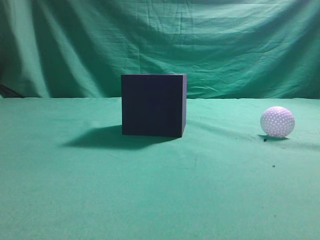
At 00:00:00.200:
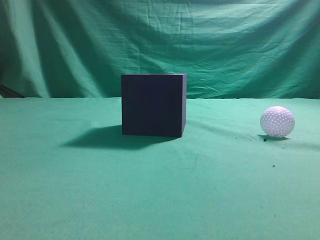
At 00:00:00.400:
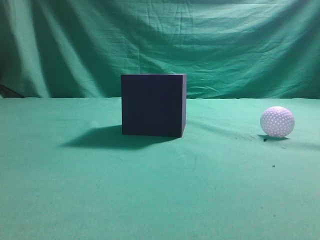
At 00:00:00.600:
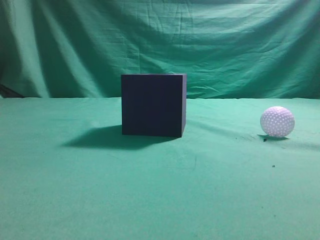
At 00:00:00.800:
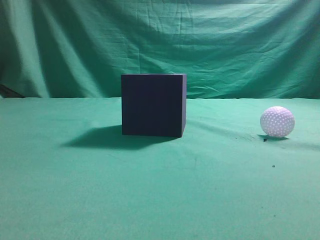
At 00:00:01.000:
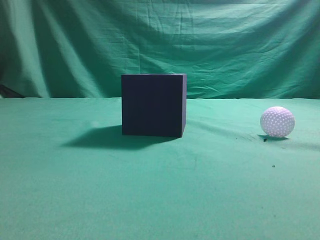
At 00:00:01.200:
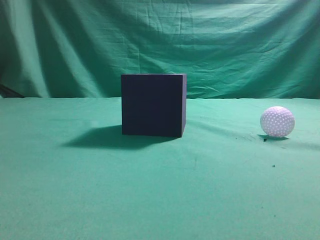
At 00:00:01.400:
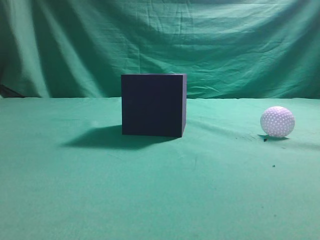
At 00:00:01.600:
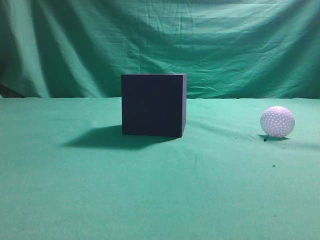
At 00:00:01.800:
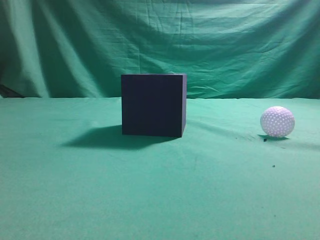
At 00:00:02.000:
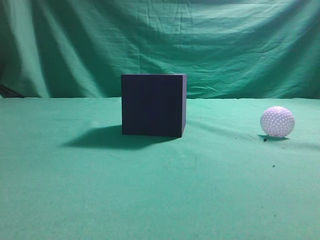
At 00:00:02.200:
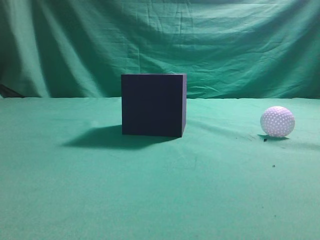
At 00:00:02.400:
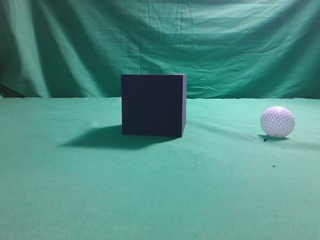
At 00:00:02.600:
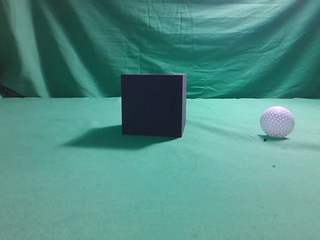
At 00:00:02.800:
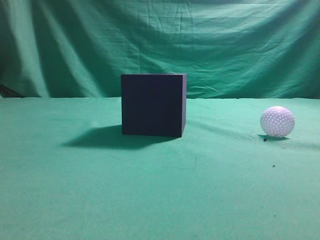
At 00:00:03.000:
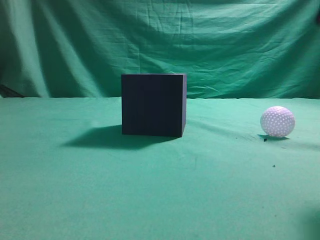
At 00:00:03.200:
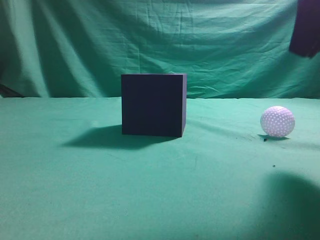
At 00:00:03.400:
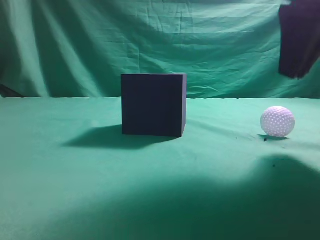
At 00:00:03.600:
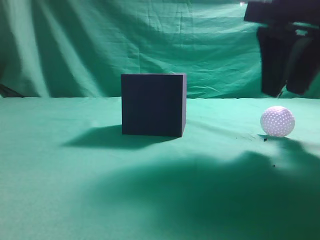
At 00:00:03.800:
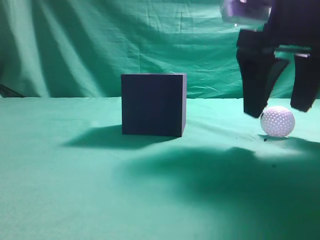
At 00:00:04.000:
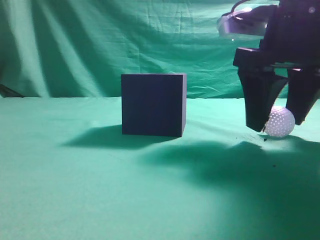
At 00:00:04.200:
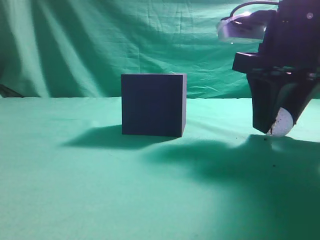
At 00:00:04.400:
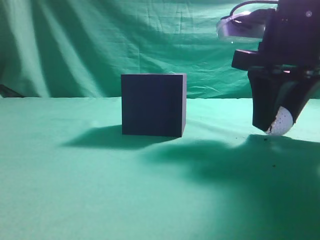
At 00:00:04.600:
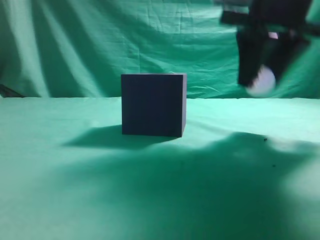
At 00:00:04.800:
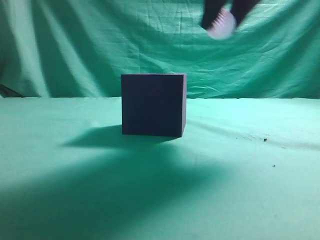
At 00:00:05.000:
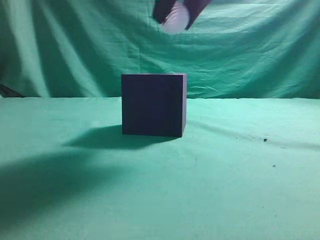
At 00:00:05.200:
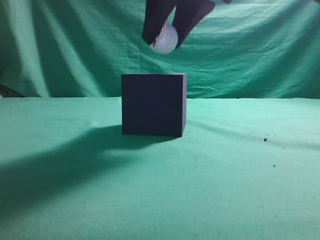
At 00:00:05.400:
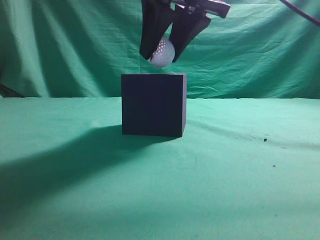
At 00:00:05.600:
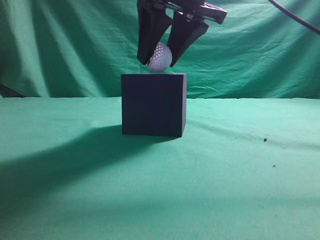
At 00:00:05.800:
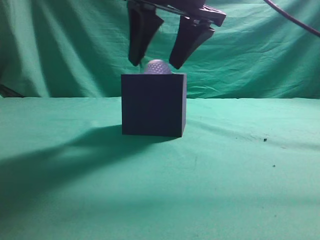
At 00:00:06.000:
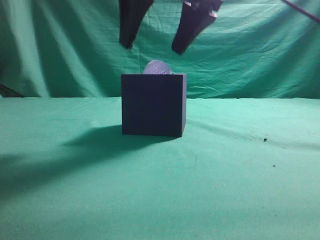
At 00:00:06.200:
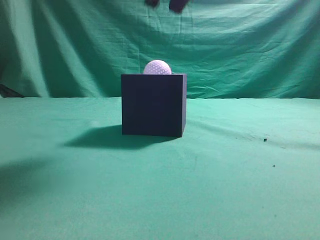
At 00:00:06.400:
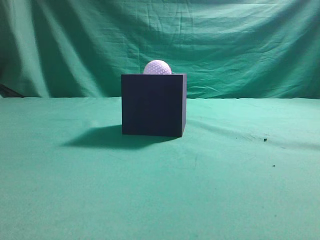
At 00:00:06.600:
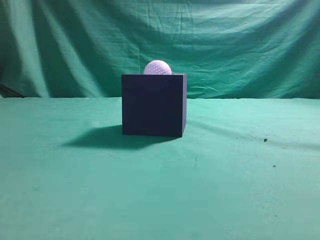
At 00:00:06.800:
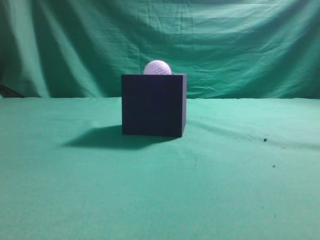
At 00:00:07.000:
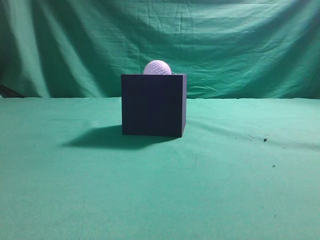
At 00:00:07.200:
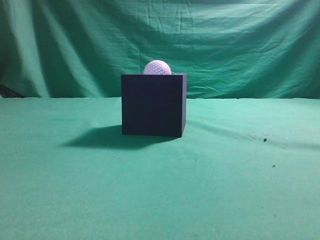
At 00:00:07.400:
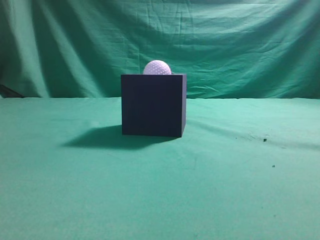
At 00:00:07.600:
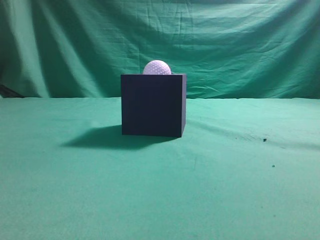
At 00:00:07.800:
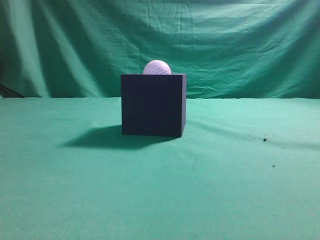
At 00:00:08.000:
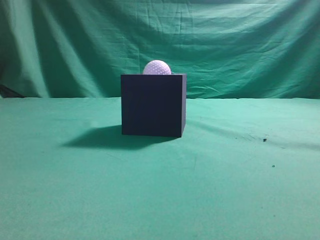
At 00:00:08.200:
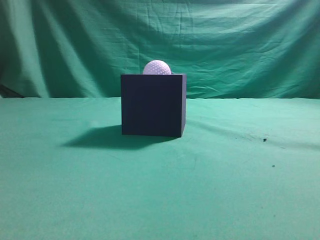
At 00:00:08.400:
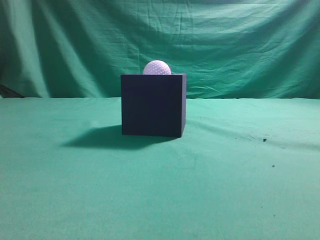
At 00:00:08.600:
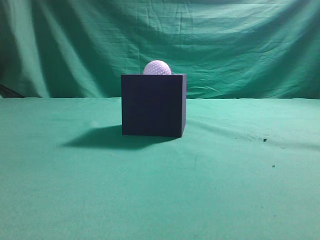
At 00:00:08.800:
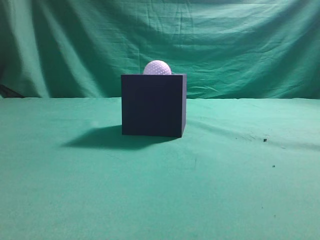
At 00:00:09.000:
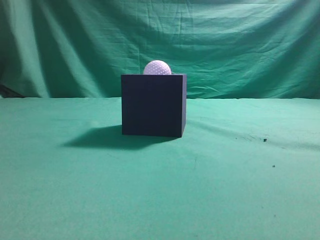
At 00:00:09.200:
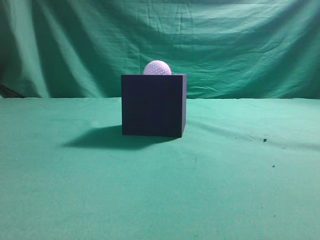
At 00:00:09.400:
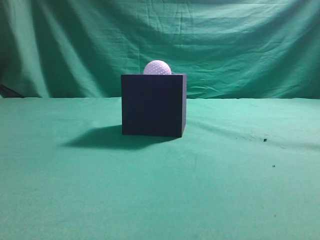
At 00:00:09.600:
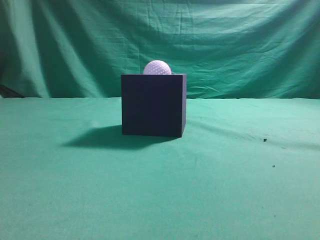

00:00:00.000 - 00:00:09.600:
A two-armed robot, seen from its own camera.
Task of the whole recording: Pick up the ball and place it in the circular groove above the cube.
Step, 00:00:00.000 - 00:00:04.600: Grasp the sphere on the table.
Step, 00:00:04.800 - 00:00:06.000: Place the sphere into the sphere-shaped recess.
00:00:01.600 - 00:00:03.200: The right gripper travels forward and to the left by some 20 cm.
00:00:03.200 - 00:00:04.800: The right gripper shifts roughly 10 cm forward and to the left, reaches about 10 cm downward, then returns, and opens up.
00:00:04.800 - 00:00:06.400: The right gripper travels upward by roughly 10 cm, and closes.
